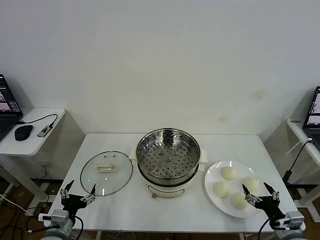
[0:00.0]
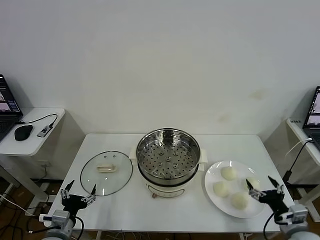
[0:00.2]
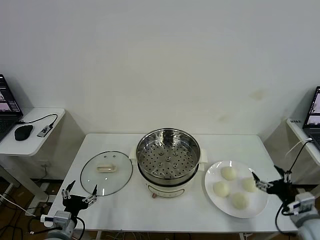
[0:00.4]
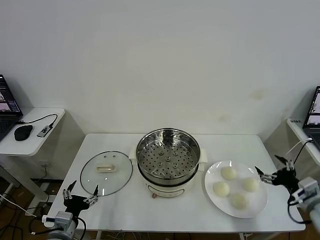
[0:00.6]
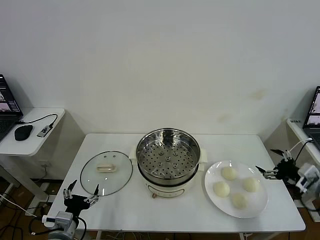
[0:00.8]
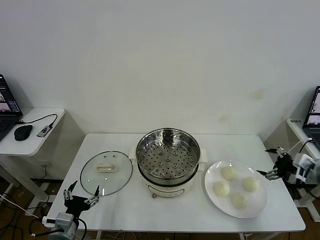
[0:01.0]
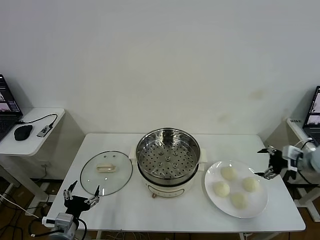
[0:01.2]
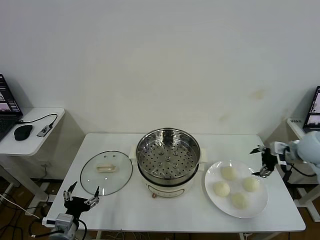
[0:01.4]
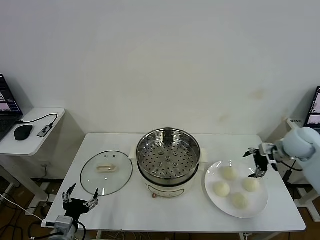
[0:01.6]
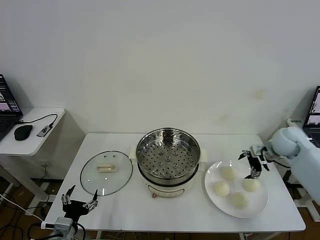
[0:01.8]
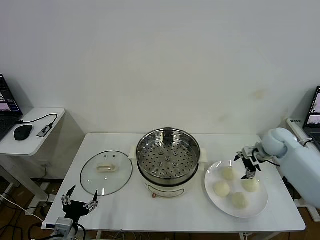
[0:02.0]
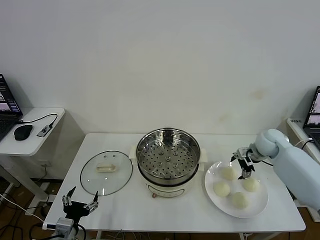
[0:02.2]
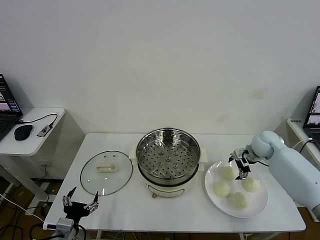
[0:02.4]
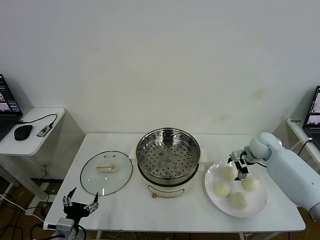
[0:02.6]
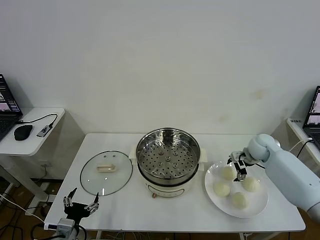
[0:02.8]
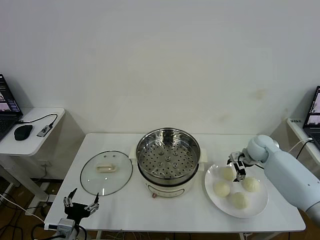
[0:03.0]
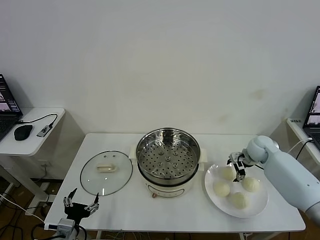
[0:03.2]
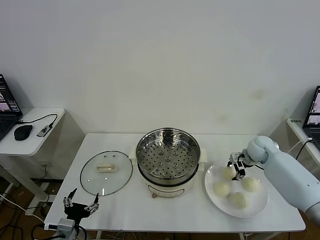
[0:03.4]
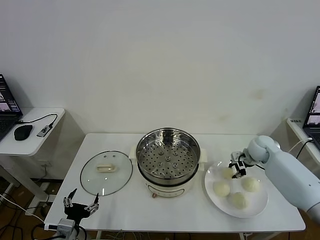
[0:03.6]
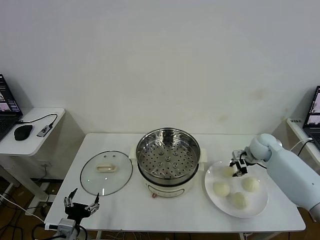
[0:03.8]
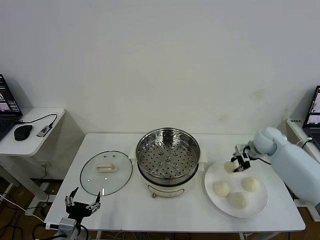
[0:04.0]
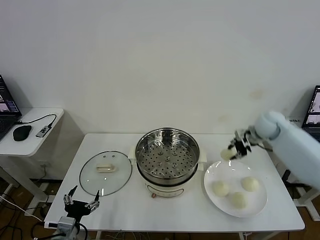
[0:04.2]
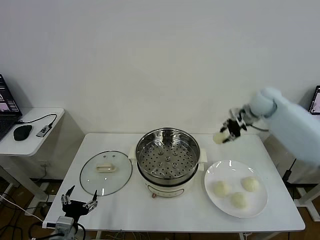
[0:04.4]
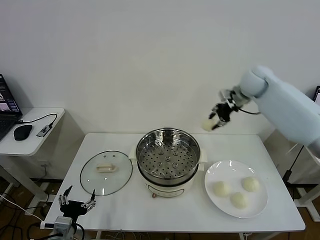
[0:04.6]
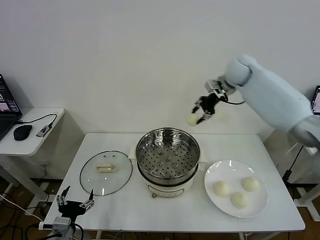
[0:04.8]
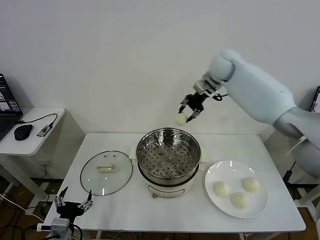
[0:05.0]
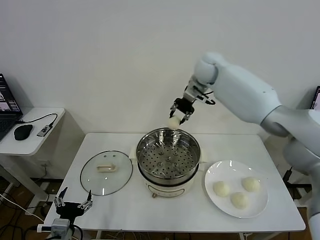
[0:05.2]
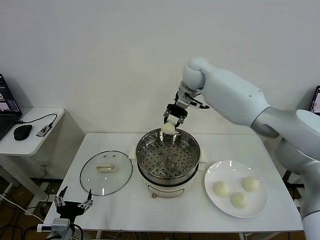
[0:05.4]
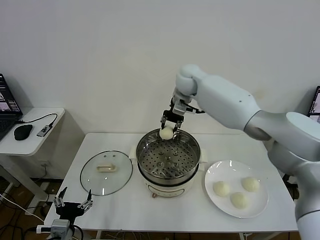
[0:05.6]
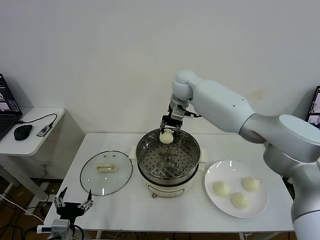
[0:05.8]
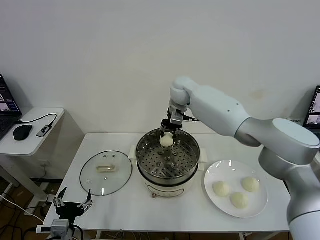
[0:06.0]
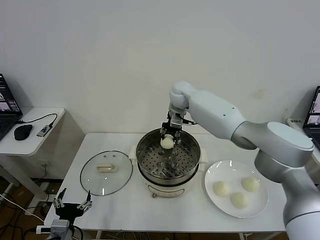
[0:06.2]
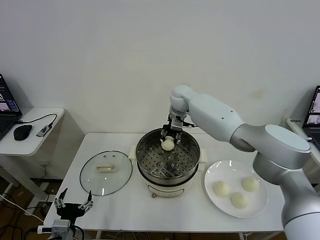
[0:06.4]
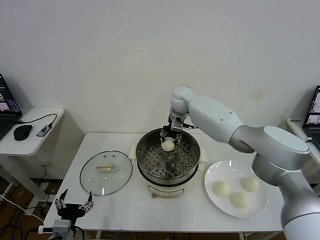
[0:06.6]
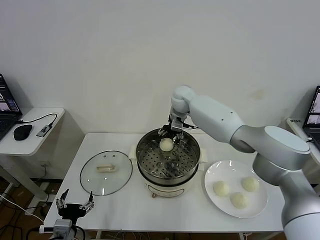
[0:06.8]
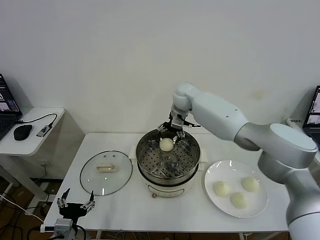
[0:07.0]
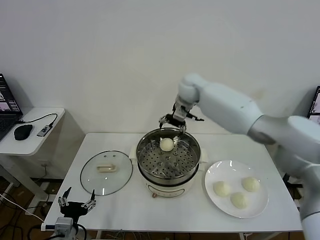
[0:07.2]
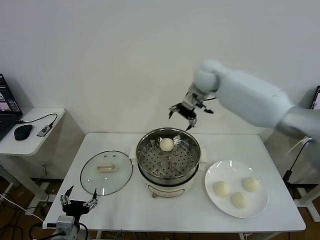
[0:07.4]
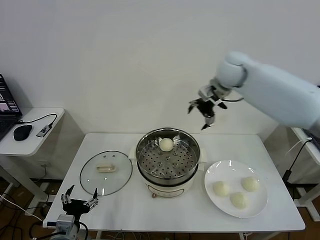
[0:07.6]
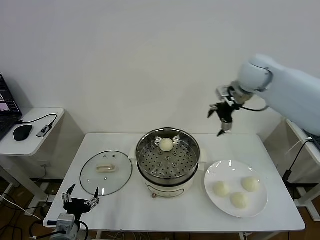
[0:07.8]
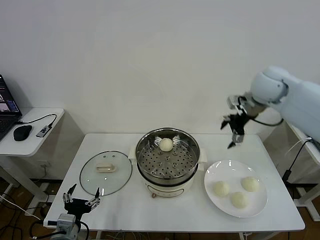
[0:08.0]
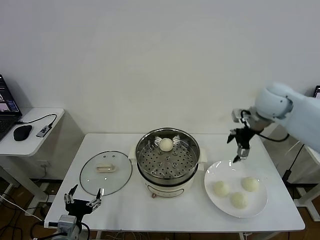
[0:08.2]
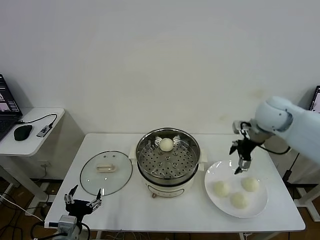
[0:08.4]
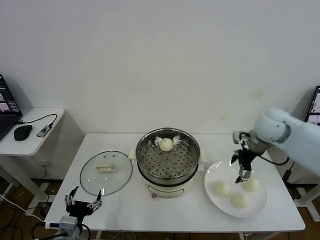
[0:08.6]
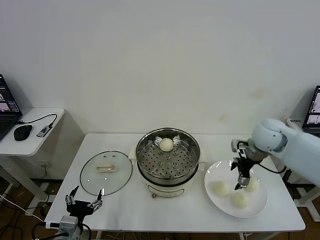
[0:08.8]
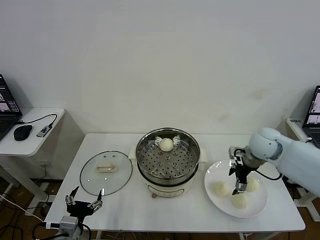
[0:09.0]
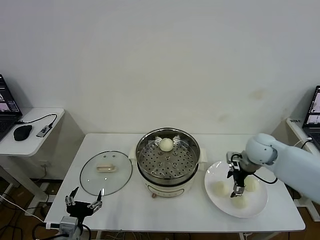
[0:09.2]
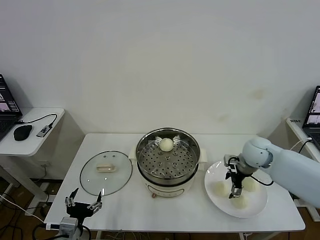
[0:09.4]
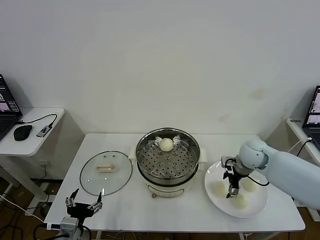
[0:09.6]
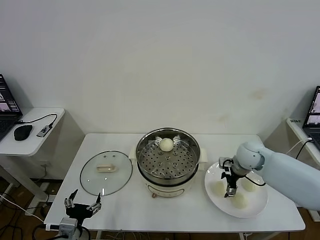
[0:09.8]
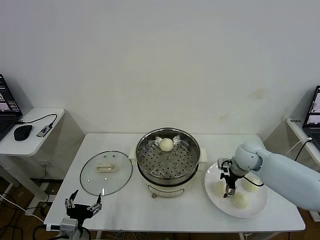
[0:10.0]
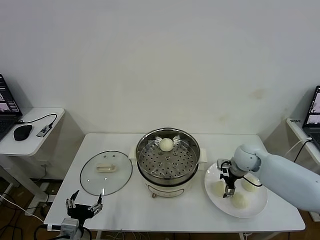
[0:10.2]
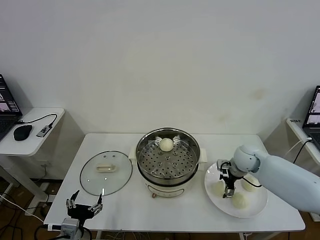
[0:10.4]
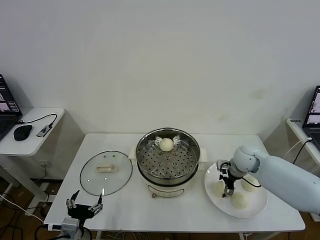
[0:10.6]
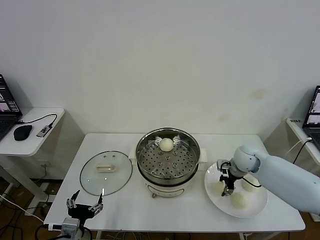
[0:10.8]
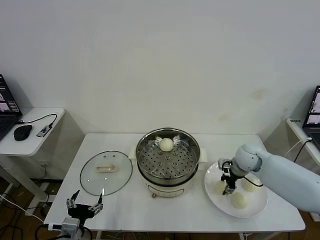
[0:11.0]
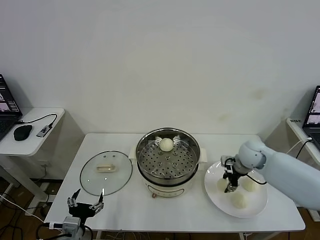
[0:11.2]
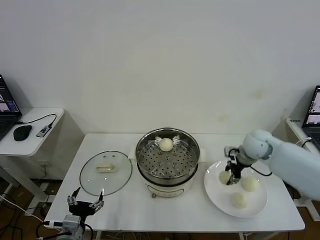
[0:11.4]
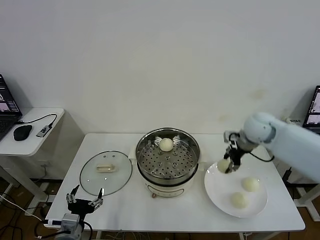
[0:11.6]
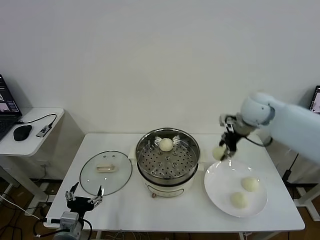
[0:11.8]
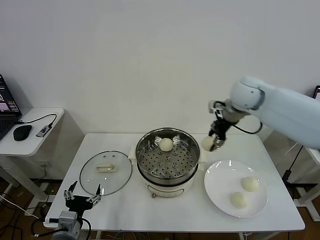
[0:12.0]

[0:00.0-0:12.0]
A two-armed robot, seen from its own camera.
Task of the whole recording: take steamed baozi put them in steamer then cover it.
Step, 0:00.0 to 0:03.6: Grasp the baozi in the plate with right gripper.
Step, 0:03.8 to 0:06.8: Place the baozi on the steamer with right gripper.
Step, 0:07.0 to 0:11.0: Grasp the baozi in the plate with right gripper.
0:01.6 to 0:03.0: The right gripper shifts about 15 cm downward, forward and to the left.
0:03.0 to 0:04.4: The right gripper moves upward, approximately 20 cm, and closes its fingers.
0:04.4 to 0:06.0: The right gripper goes about 25 cm to the left.
0:06.0 to 0:07.6: The right gripper shifts about 20 cm to the right and upward, and opens.
0:07.6 to 0:09.0: The right gripper goes some 25 cm downward, backward and to the right.
0:09.0 to 0:10.4: The right gripper is displaced downward by roughly 10 cm.
0:10.4 to 0:12.0: The right gripper heads upward, covering about 25 cm, and closes its fingers.

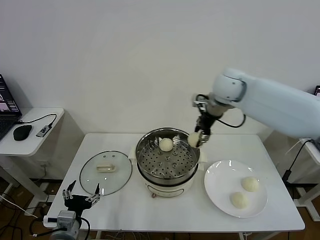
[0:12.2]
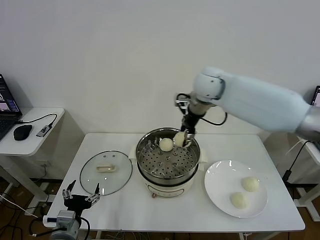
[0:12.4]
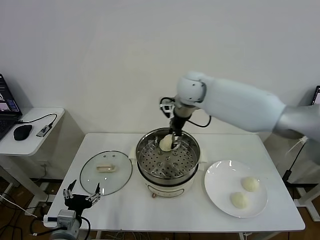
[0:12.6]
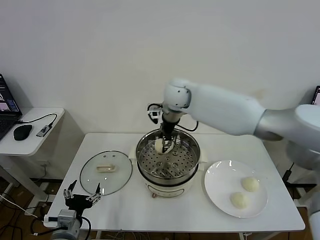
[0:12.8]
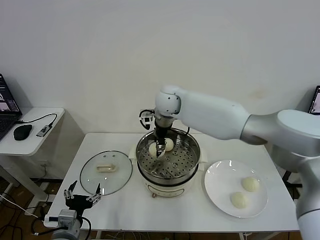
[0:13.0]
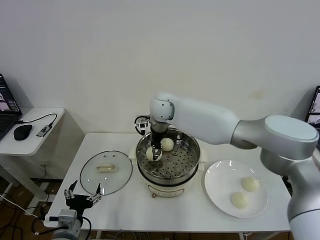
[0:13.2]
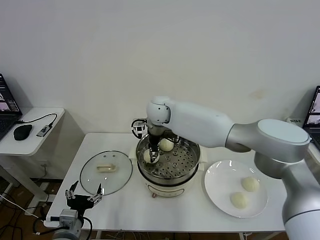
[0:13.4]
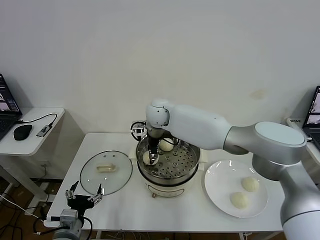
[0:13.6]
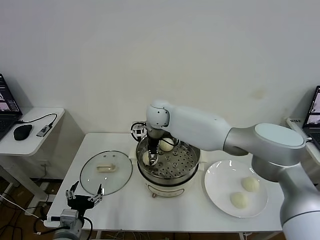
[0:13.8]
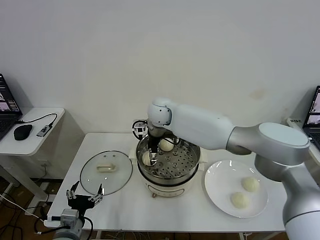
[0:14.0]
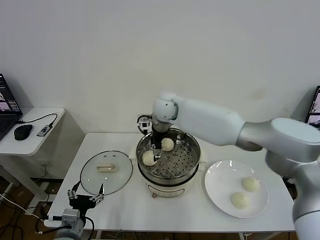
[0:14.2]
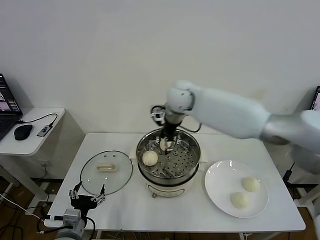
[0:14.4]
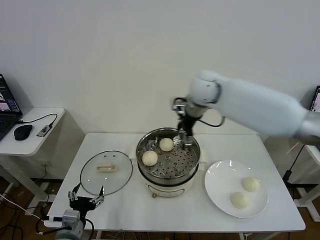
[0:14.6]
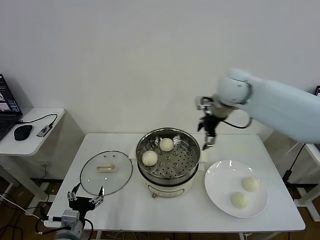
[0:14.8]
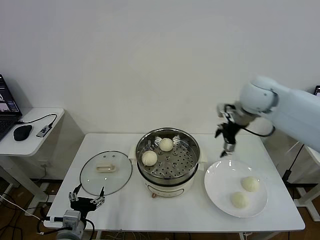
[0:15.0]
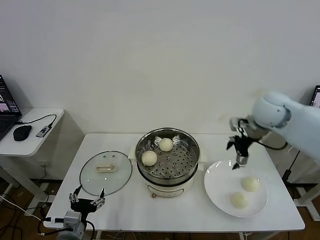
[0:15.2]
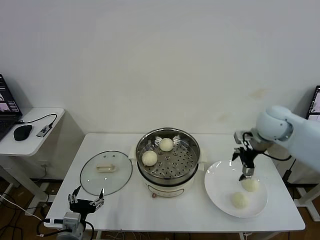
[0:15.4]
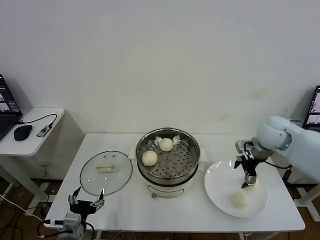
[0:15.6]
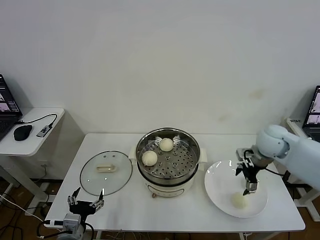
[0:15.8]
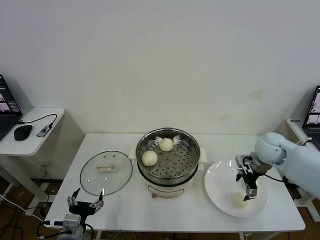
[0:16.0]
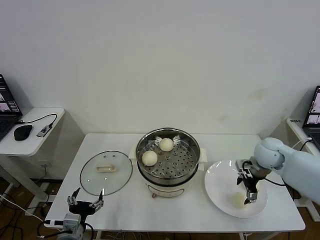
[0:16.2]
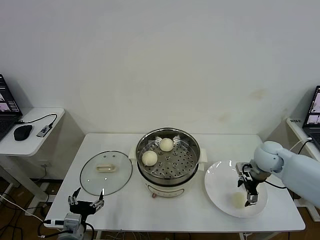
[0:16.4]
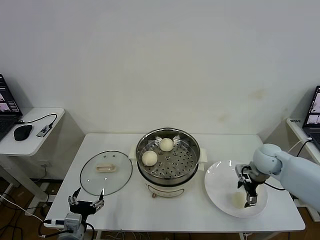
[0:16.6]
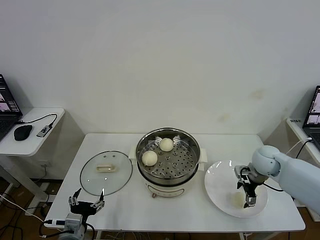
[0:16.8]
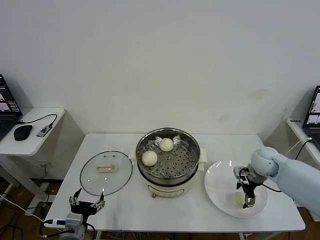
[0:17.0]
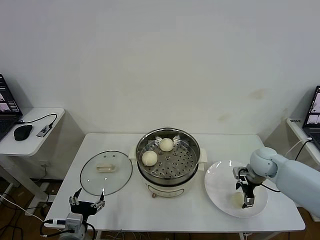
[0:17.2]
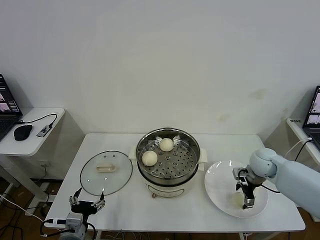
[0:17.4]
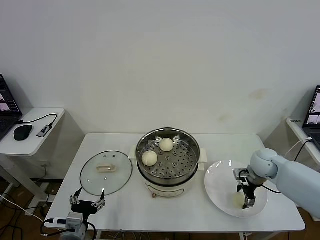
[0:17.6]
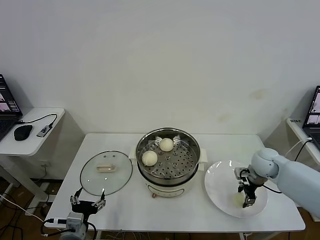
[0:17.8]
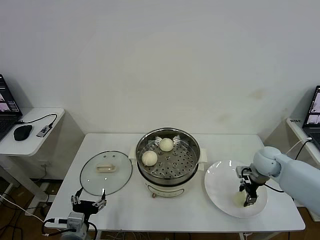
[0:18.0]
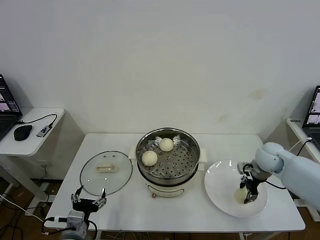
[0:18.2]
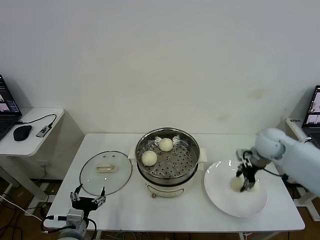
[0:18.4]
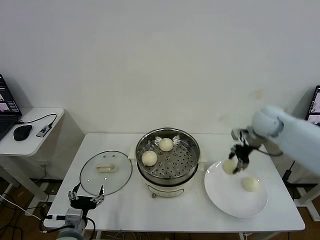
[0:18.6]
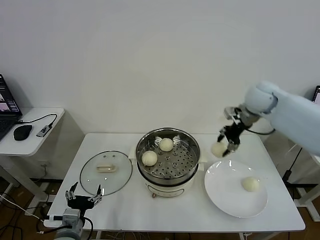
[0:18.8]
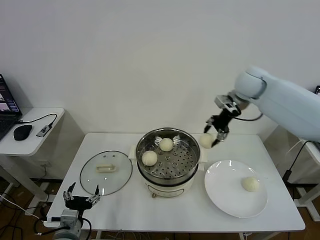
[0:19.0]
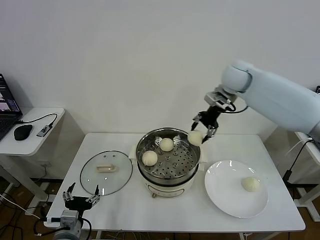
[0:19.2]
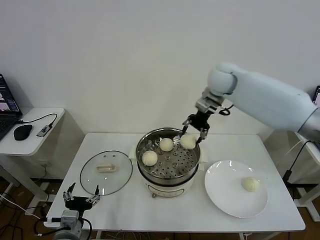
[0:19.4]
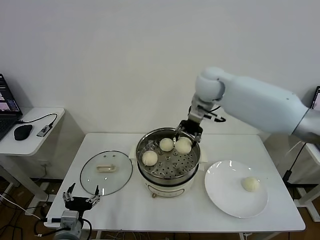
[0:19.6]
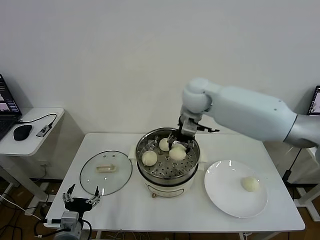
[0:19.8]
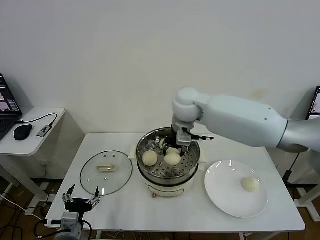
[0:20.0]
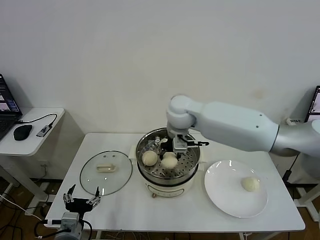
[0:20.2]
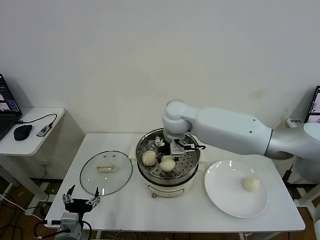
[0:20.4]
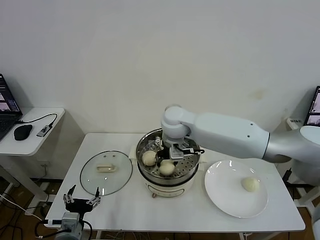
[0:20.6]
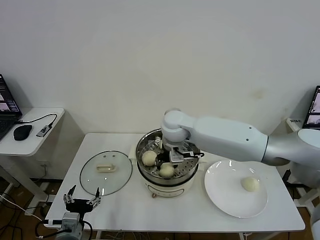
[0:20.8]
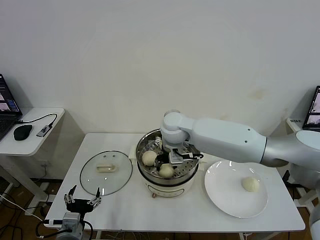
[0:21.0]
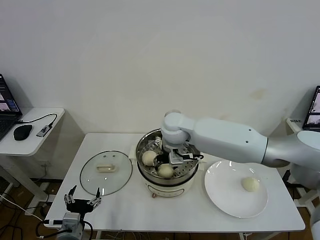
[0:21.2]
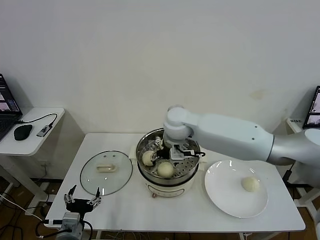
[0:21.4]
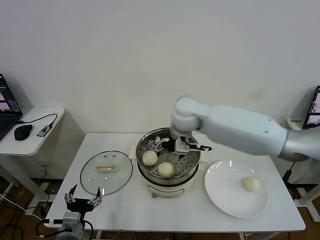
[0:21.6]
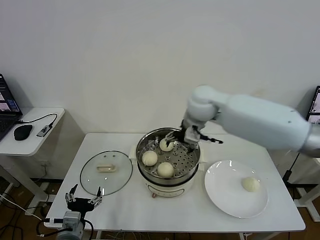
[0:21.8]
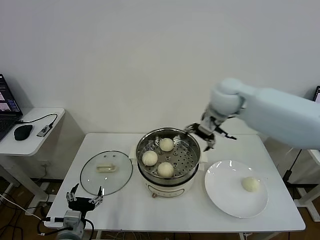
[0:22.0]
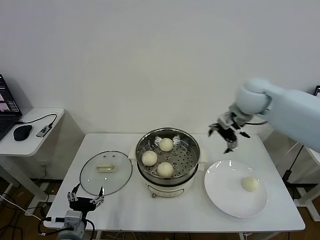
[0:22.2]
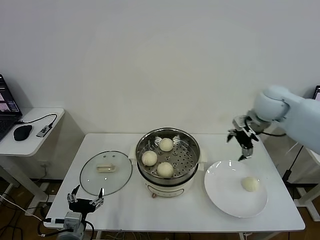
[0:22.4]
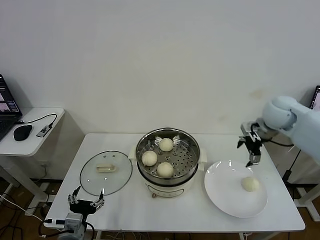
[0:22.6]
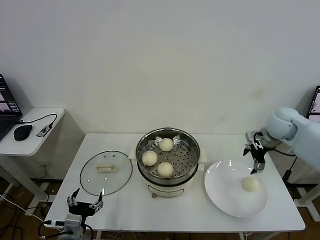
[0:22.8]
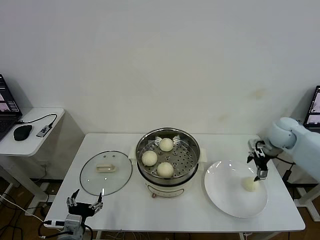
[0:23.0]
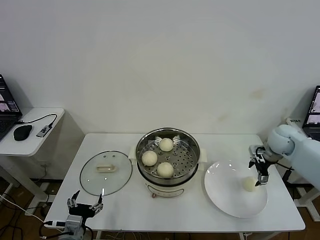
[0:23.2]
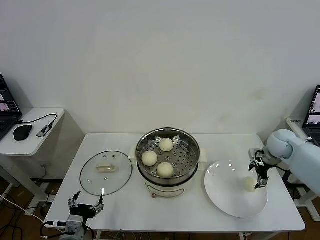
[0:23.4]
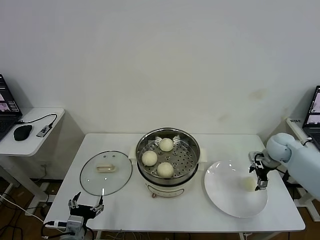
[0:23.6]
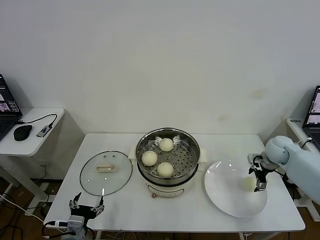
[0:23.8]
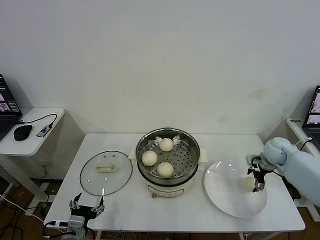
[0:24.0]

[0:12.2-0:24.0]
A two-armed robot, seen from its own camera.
Task of the whole recording: take steamed baozi put them in steamer then cover it.
Step, 0:12.2 to 0:14.2: Place the baozi on the steamer with right gripper.
Step, 0:14.6 to 0:17.8: Grasp the baozi in the plate with right gripper.
Step, 0:18.2 to 0:21.4: Place the baozi on the steamer with right gripper.
0:12.2 to 0:13.6: The right gripper travels to the left and downward by approximately 25 cm.
0:13.6 to 0:15.2: The right gripper goes roughly 35 cm to the right, and opens.
0:15.2 to 0:16.6: The right gripper heads downward, covering some 20 cm.
0:16.6 to 0:18.2: The right gripper closes its fingers.
0:18.2 to 0:19.6: The right gripper goes roughly 35 cm to the left, upward and forward.
0:19.6 to 0:21.0: The right gripper travels to the left, downward and backward by about 15 cm.
0:21.0 to 0:22.6: The right gripper travels to the right by approximately 30 cm, and opens up.
0:22.6 to 0:24.0: The right gripper shifts about 20 cm downward and to the right.
